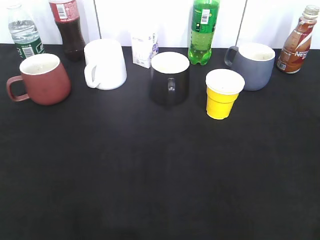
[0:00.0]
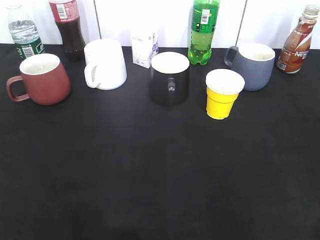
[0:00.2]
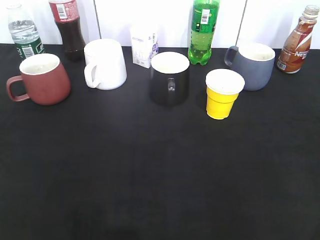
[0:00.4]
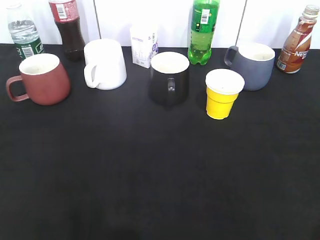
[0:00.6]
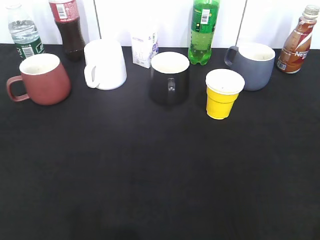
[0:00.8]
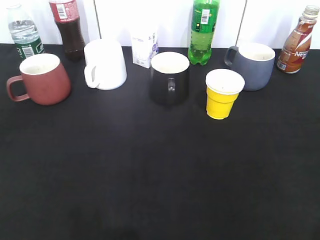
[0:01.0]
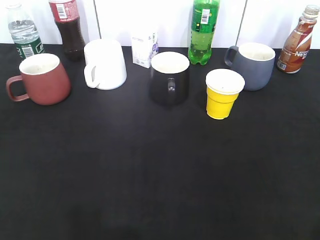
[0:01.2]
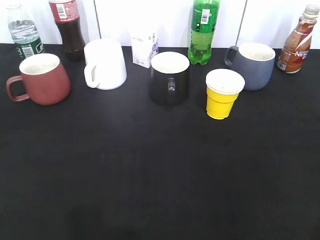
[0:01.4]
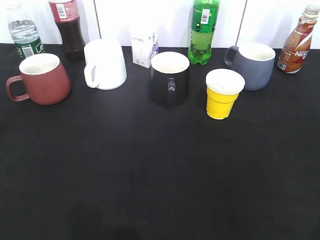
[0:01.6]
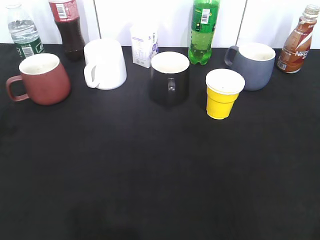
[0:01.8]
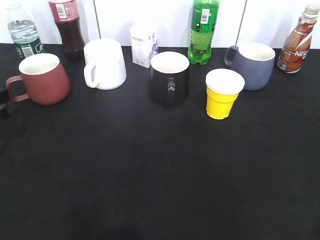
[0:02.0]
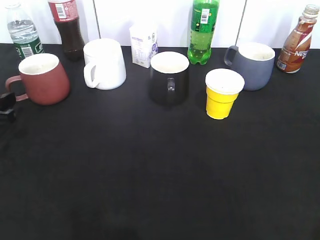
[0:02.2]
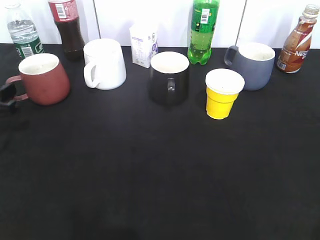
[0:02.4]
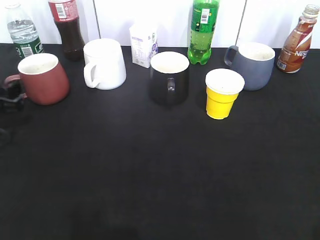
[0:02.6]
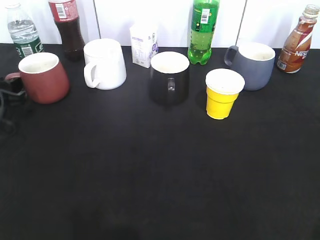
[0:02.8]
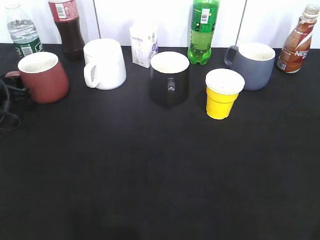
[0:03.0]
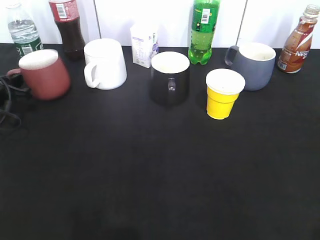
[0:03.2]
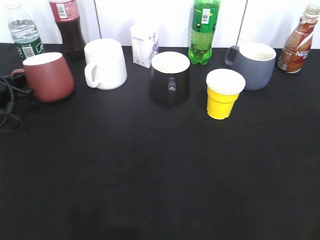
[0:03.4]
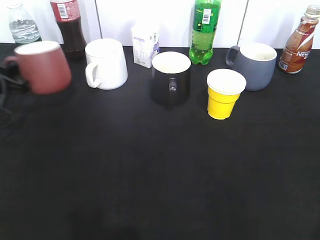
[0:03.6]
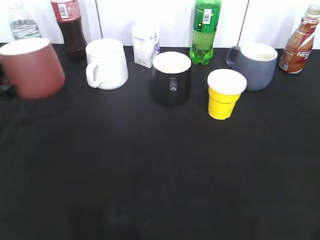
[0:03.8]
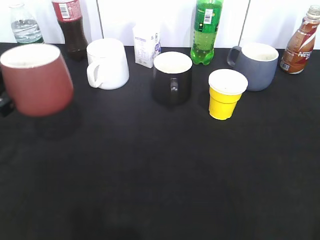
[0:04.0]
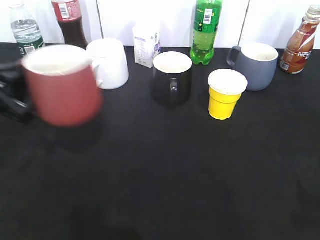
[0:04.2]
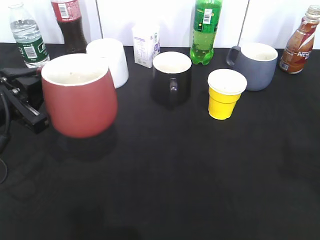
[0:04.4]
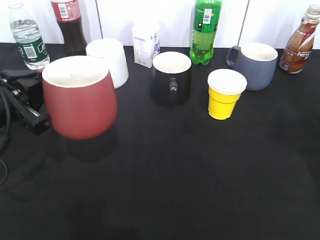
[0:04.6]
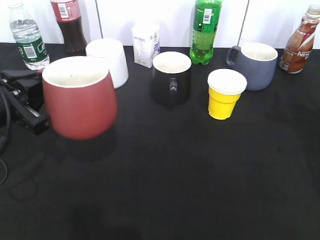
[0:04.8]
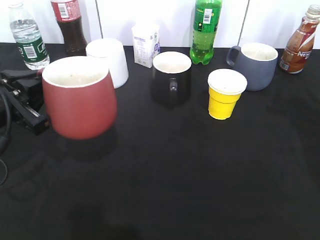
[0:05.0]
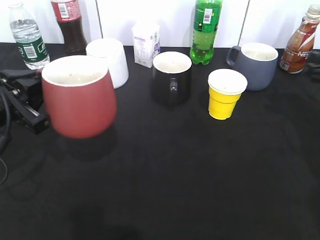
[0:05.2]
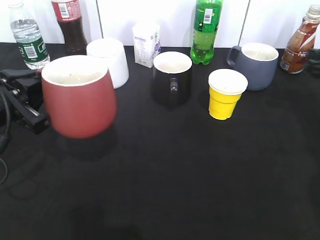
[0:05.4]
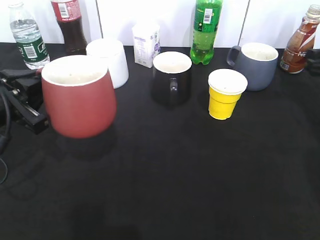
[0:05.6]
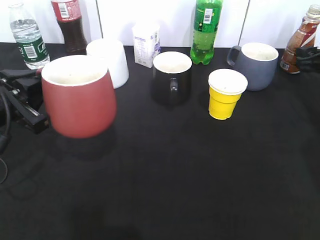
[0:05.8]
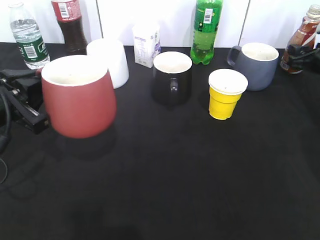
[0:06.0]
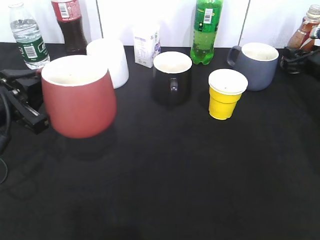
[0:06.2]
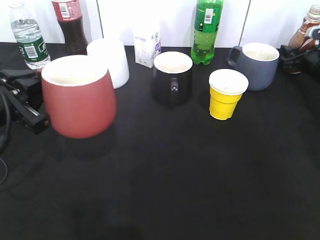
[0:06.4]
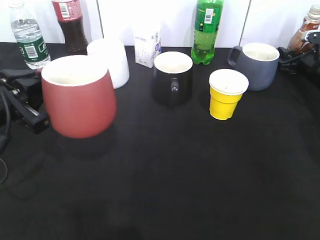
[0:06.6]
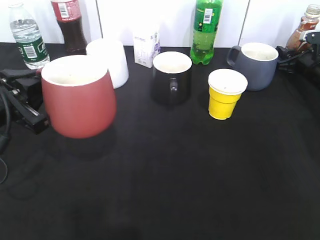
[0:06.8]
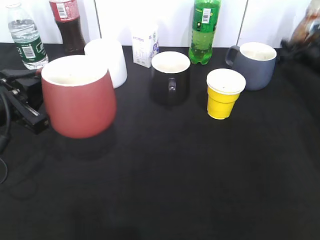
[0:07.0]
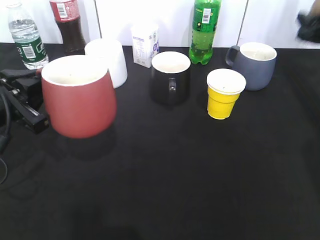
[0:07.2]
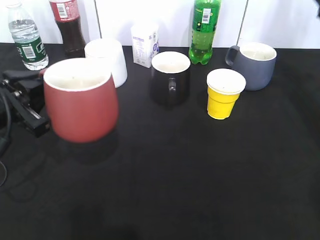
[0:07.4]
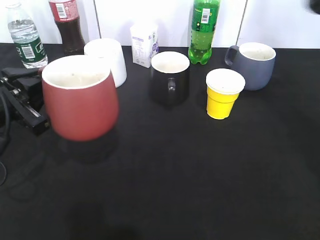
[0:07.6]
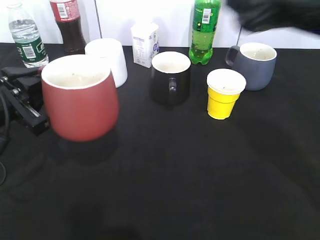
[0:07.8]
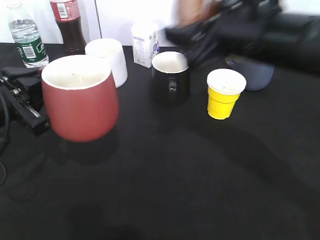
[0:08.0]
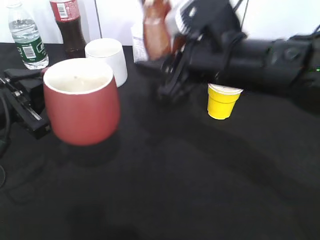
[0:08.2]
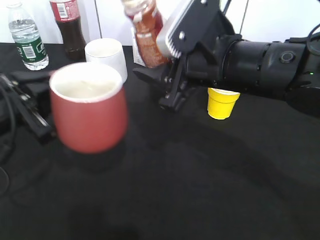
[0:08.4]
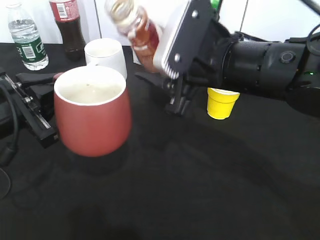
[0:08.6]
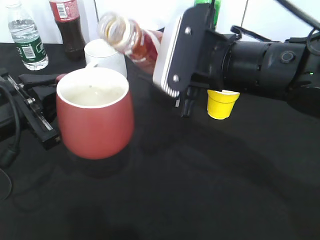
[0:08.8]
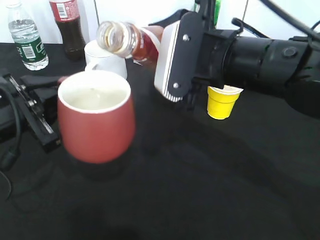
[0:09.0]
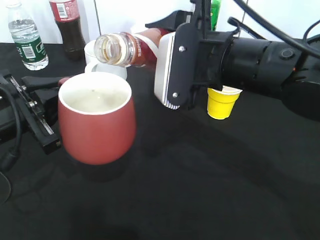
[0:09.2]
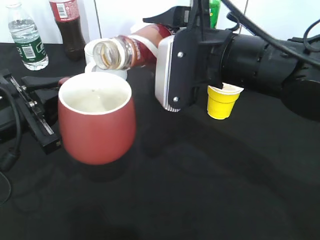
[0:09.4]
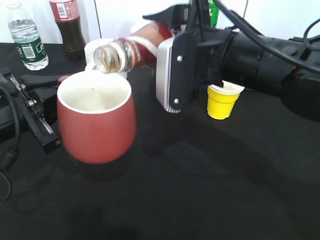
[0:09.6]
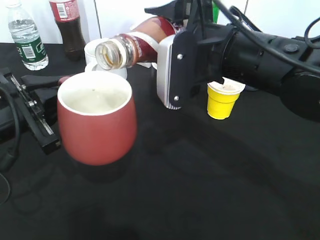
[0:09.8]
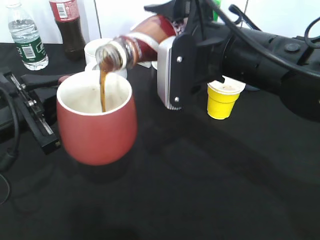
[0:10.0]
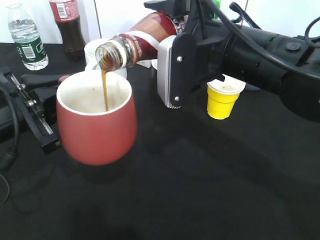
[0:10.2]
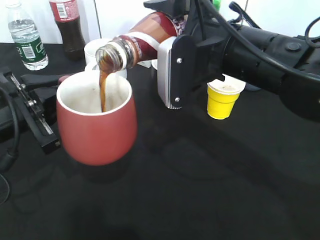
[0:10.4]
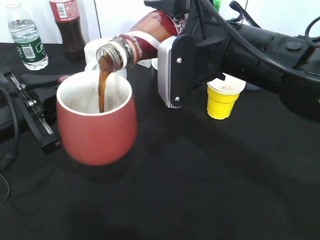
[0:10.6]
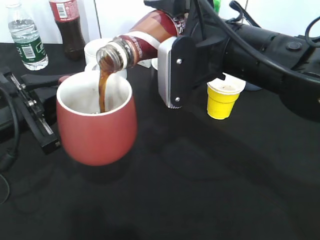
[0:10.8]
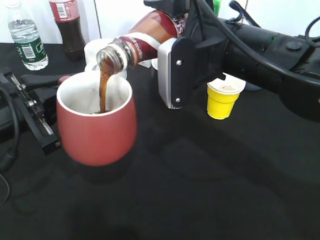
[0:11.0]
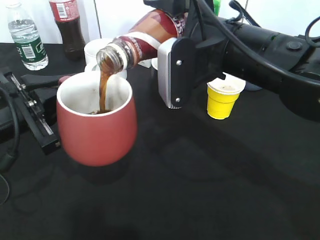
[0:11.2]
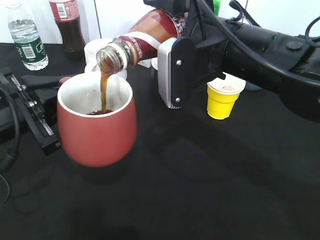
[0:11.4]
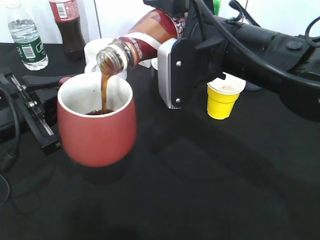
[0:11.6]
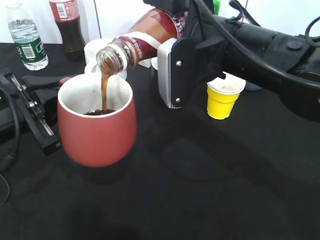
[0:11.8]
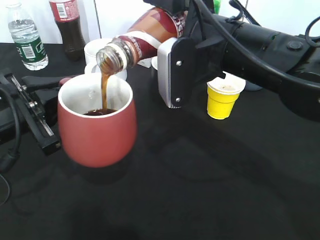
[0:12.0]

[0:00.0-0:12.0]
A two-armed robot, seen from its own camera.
Step, 0:01.8 to 0:03.2: Grasp the red cup with left gripper.
Step, 0:03.4 to 0:04.8: Lift the red cup with left gripper.
Step, 0:05.2 to 0:06.6: Grasp the bottle with coffee with right gripper.
0:01.6 to 0:03.0: The left gripper travels forward and downward by approximately 15 cm.
0:03.0 to 0:04.4: The right gripper heads forward, covering some 10 cm; the left gripper goes about 20 cm backward, to the right and upward, and closes.
0:04.4 to 0:06.0: The right gripper is displaced forward and downward by about 40 cm.
0:06.0 to 0:07.6: The right gripper travels upward, backward and to the left by about 25 cm.
0:07.6 to 0:09.0: The right gripper travels to the left by roughly 20 cm.
0:10.4 to 0:12.0: Both grippers stay put.

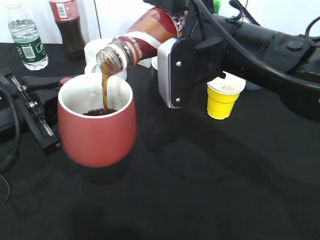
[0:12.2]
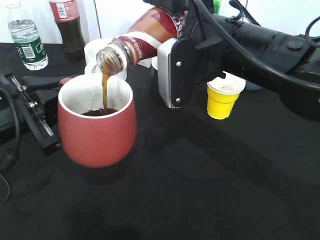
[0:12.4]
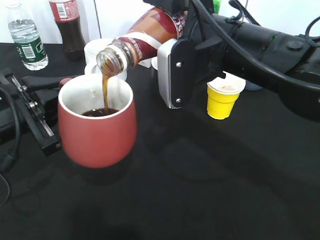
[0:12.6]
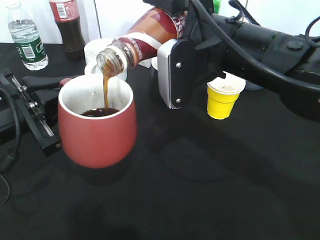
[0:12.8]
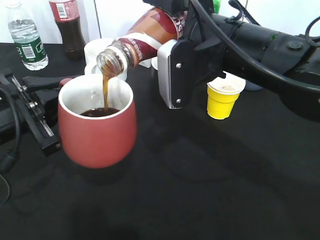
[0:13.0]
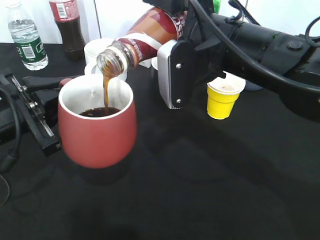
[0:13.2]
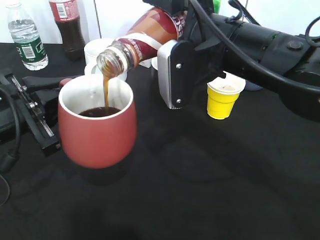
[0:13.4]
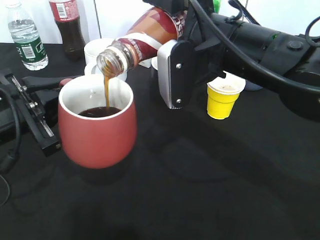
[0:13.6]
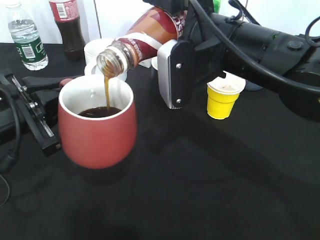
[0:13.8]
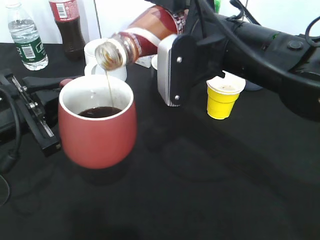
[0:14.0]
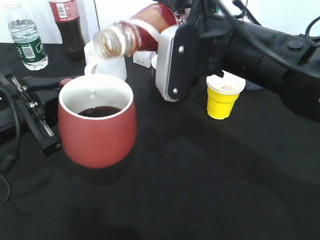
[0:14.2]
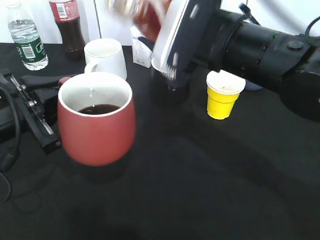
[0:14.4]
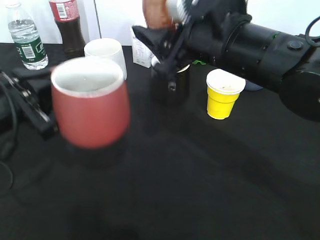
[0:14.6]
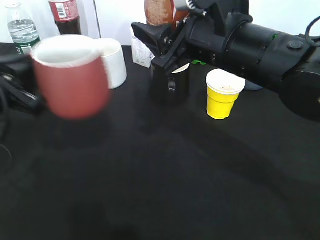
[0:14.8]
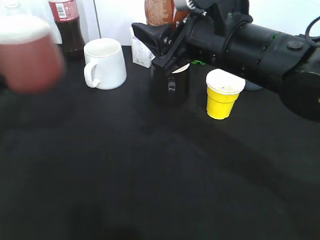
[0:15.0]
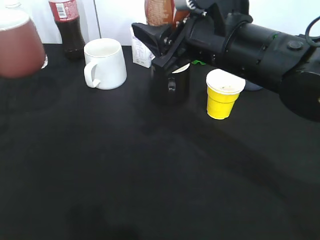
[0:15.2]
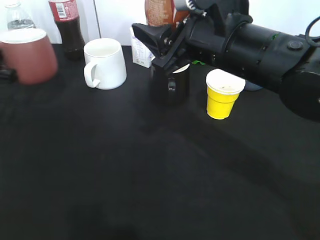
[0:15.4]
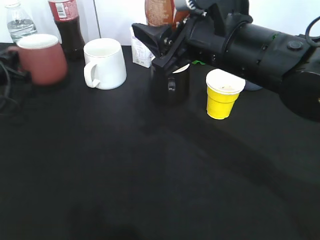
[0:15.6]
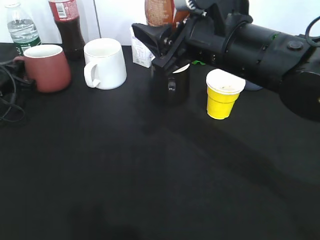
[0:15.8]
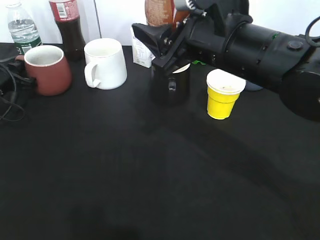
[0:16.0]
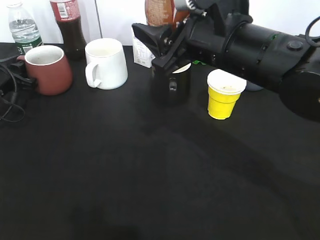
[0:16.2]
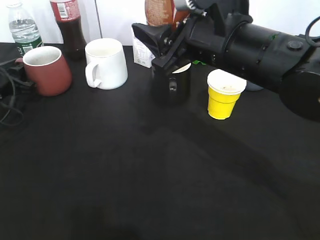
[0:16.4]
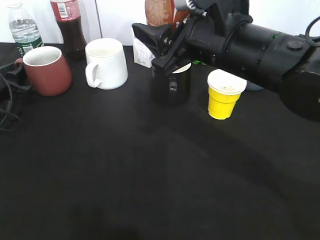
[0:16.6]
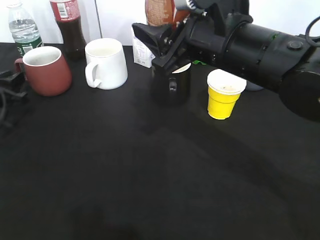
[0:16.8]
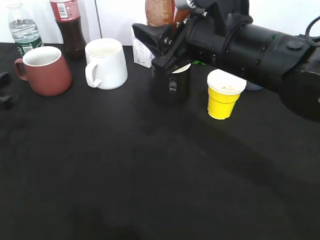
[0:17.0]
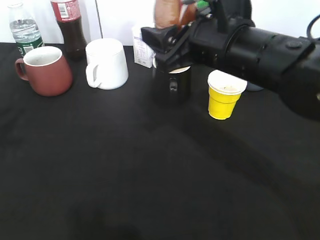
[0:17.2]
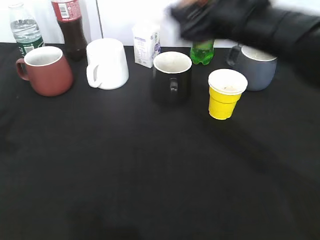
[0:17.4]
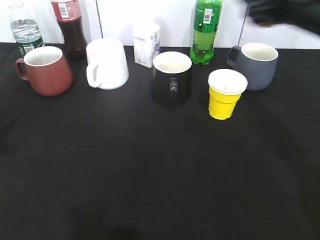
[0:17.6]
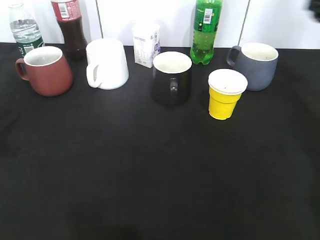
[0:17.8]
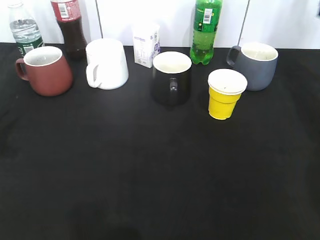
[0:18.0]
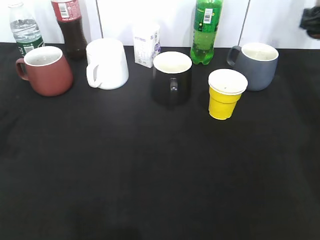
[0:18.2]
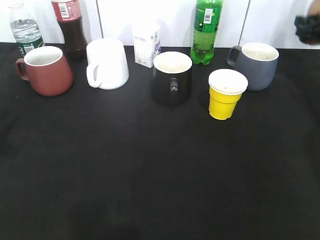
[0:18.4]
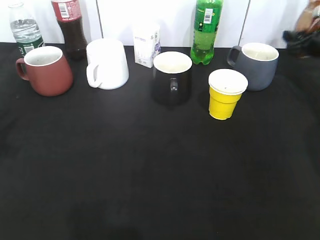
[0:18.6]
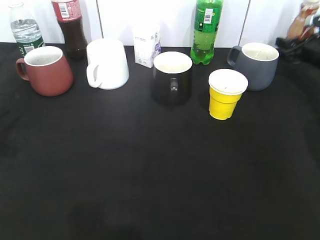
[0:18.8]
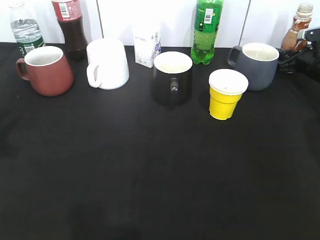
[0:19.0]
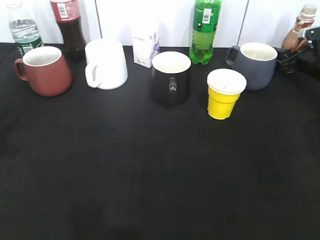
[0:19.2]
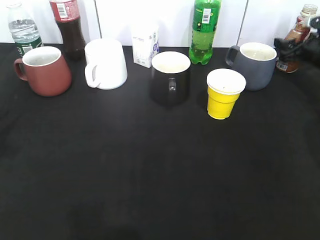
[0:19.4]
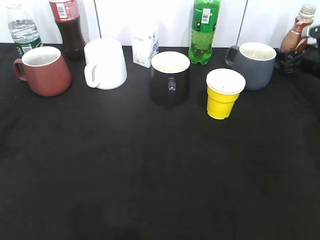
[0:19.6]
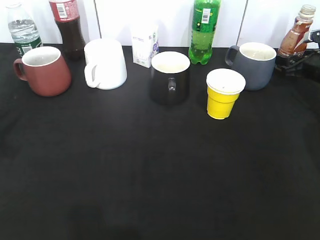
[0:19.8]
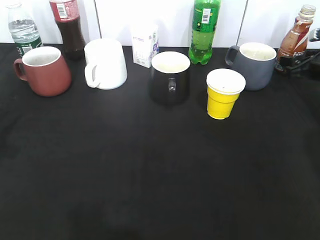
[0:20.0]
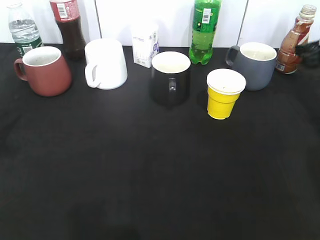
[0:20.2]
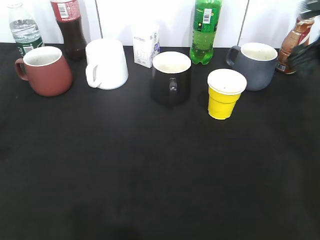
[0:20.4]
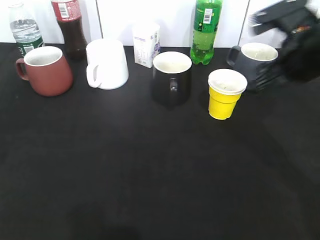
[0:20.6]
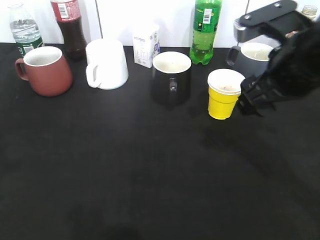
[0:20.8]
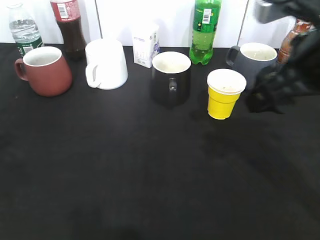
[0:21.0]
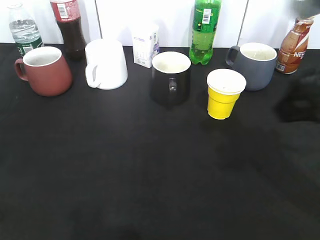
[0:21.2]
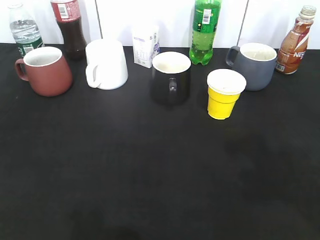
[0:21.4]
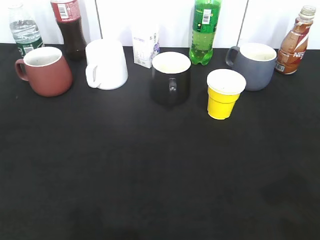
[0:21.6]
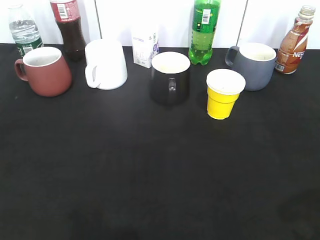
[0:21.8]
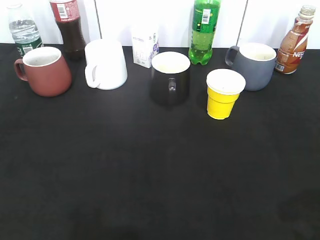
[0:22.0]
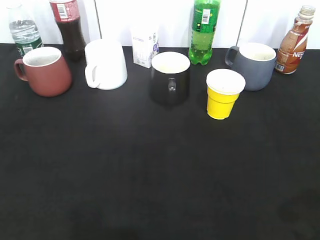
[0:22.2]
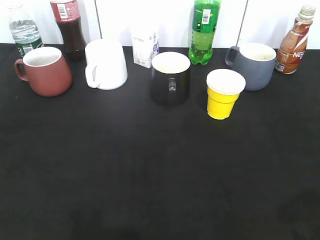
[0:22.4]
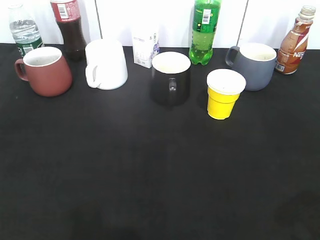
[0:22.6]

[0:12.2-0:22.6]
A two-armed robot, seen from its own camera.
Step, 0:12.2 to 0:14.2: Pour the coffee from bottle to cup with right gripper.
Step, 0:14.6 to 0:16.0: Place the red cup on the table with left gripper.
Step, 0:16.4 to 0:19.2: Place the coffee bottle on the table with right gripper.
0:12.2 to 0:13.6: Neither gripper changes place.
0:13.6 to 0:15.2: The left gripper moves to the left and forward, some 15 cm.
0:15.2 to 0:16.6: The left gripper goes some 15 cm downward and forward, and opens its fingers.
0:16.6 to 0:18.2: The left gripper heads backward and upward, covering some 25 cm. The right gripper heads to the right and forward, covering roughly 30 cm.
0:18.2 to 0:19.6: The right gripper goes approximately 10 cm downward.
0:19.6 to 0:21.2: The right gripper travels backward, upward and to the left by approximately 40 cm; the left gripper goes some 10 cm backward.
0:21.2 to 0:22.6: The right gripper goes approximately 15 cm backward and to the right.
